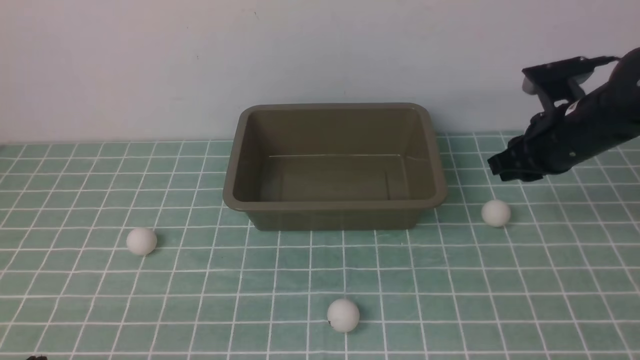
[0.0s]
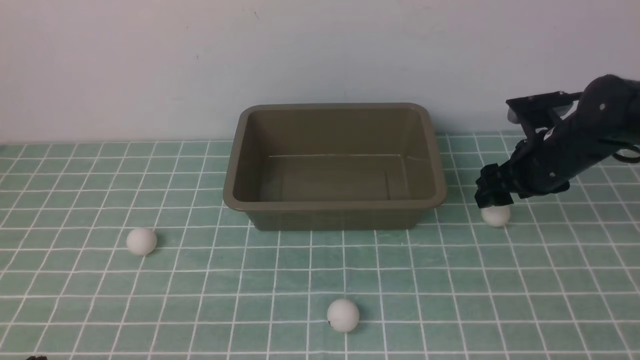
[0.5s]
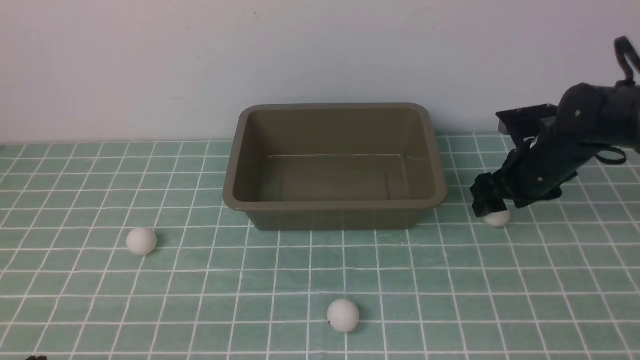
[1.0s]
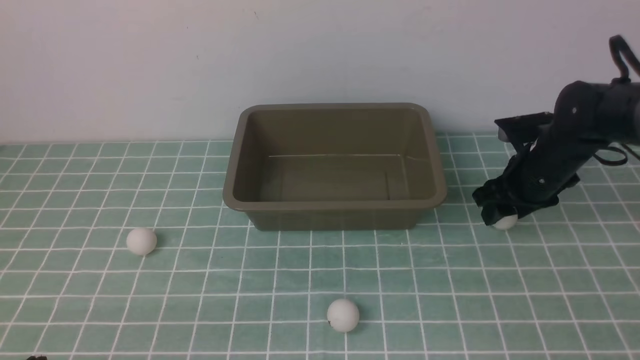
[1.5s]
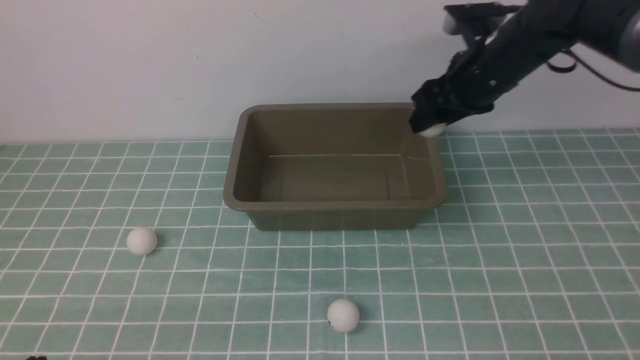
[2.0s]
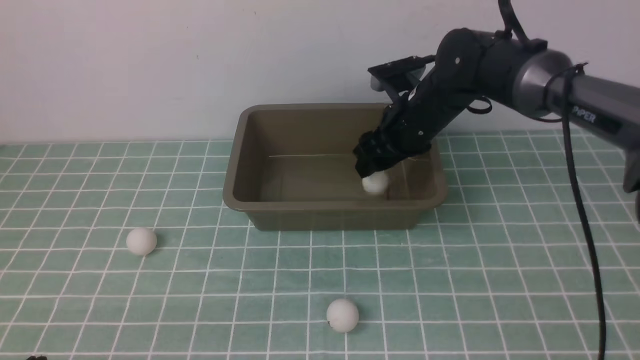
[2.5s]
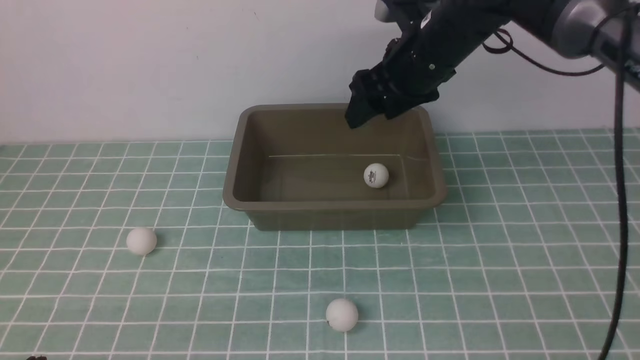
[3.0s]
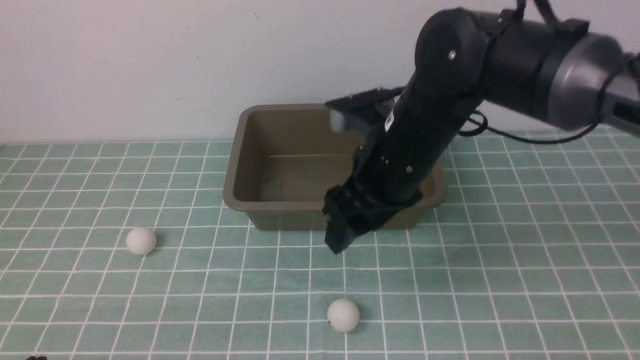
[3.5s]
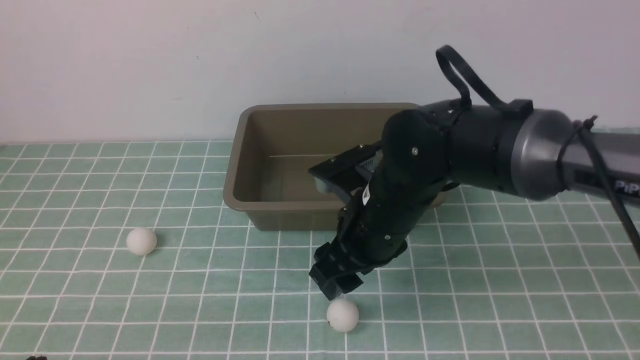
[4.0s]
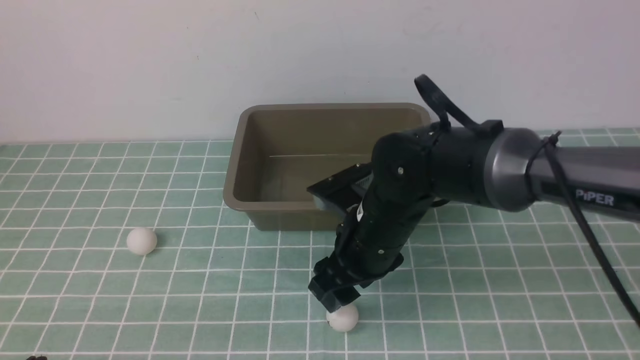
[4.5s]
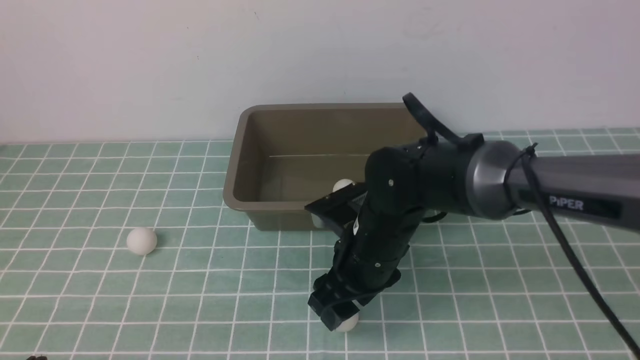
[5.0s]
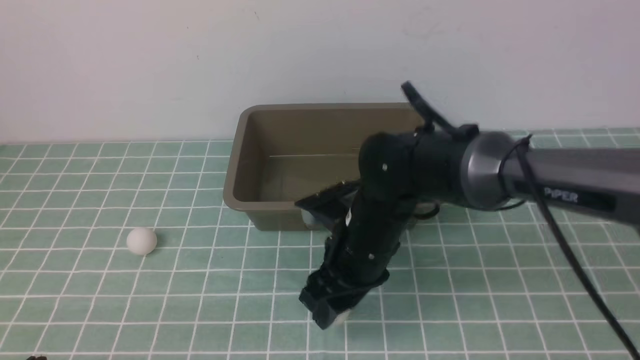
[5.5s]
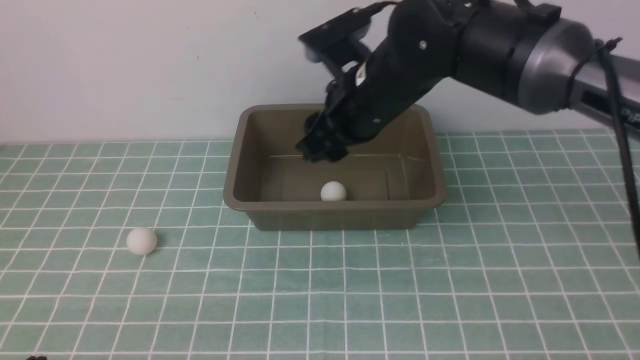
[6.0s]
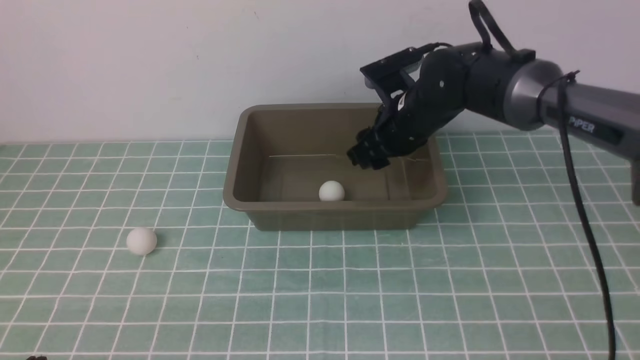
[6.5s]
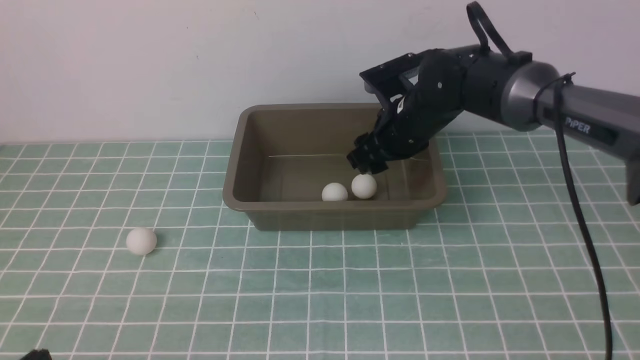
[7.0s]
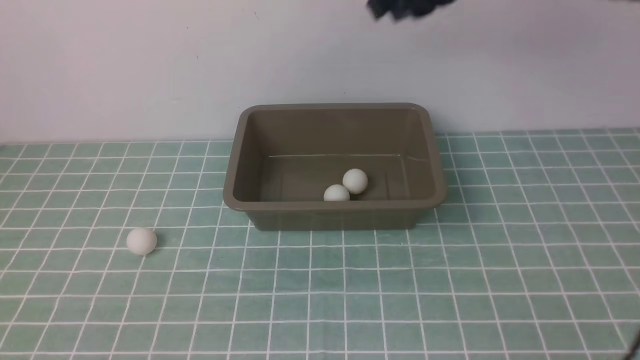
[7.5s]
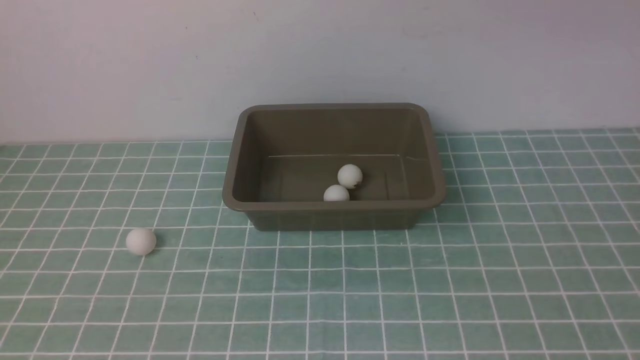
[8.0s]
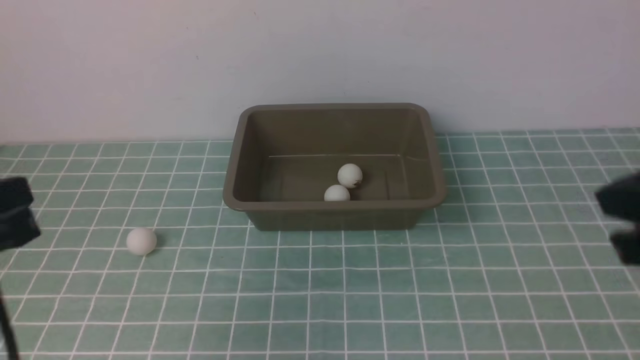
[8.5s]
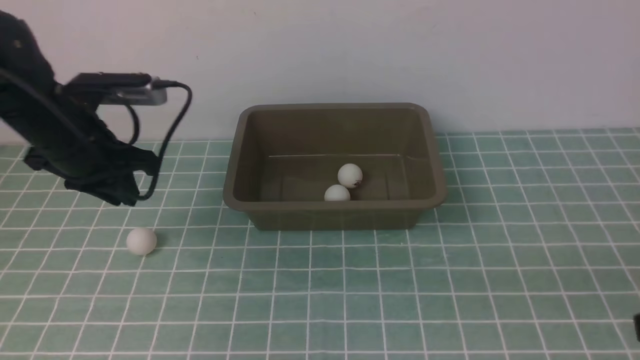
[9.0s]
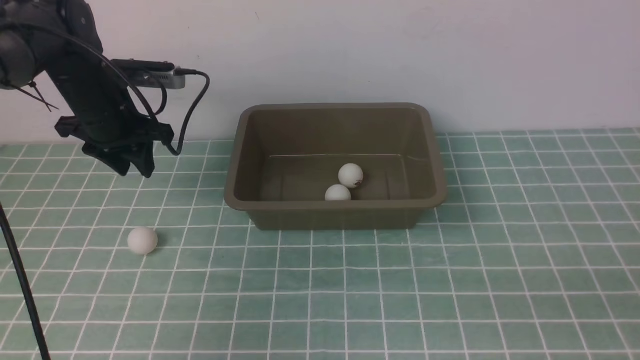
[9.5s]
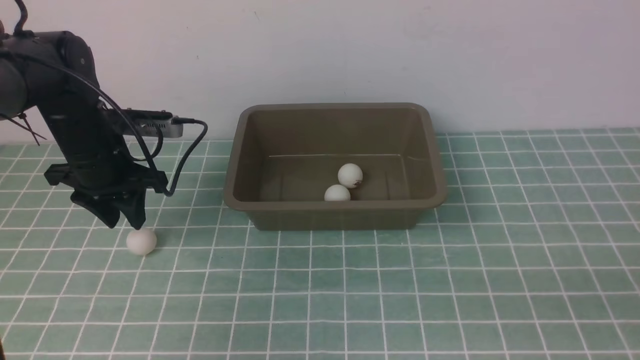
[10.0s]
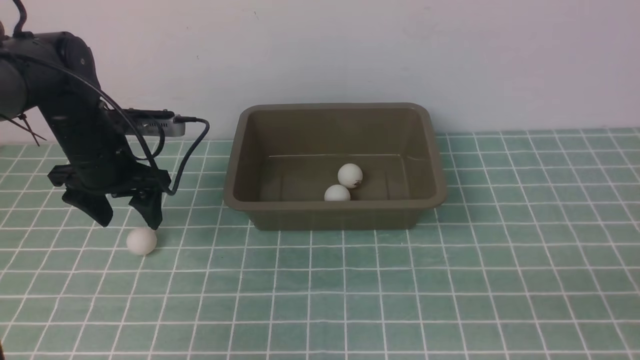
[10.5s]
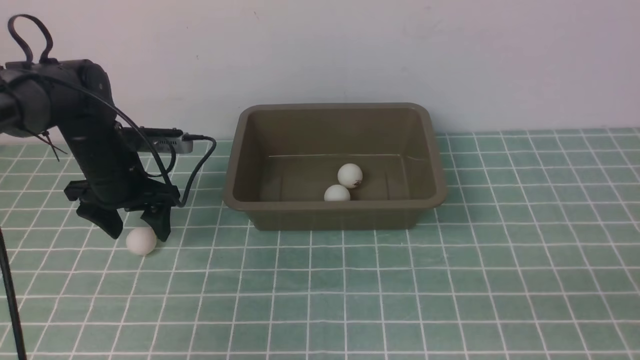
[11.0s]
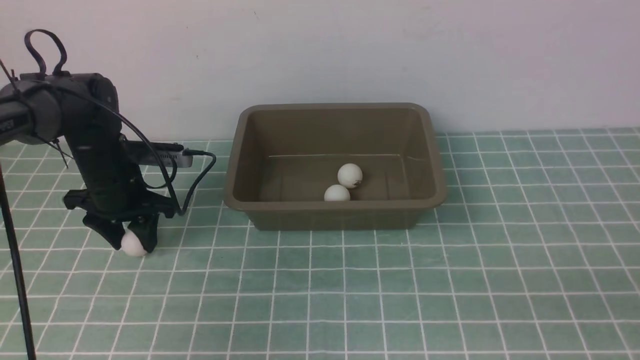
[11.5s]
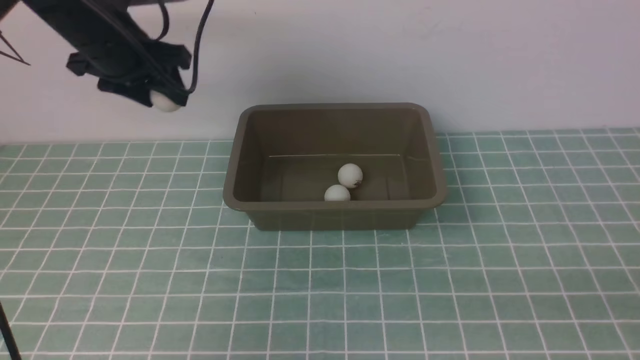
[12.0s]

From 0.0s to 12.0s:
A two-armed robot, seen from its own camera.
Step, from 2.0s to 2.5s: use the right arm to put the table tennis ball into the box.
Step, from 3.0s to 5.5s: use the right arm to clamp the table tennis ball closest to it.
Step, from 6.0s to 6.5s: use the right arm to put the table tennis ball into the box.
Step, from 7.0s to 11.5s: use the left arm to clamp the table tennis ball closest to it.
From 0.0s to 2.0s: The right gripper heads forward and to the left, covering roughly 10 cm.
From 2.0s to 4.0s: The right gripper heads to the left and backward, covering roughly 20 cm.
From 4.0s to 6.0s: The right gripper goes roughly 5 cm forward.
From 6.0s to 8.0s: The left gripper goes roughly 10 cm upward. The right gripper heads upward and to the right, covering approximately 30 cm, and closes.
From 8.0s to 10.0s: The left gripper moves forward, about 35 cm, and opens its fingers. Meanwhile the right gripper heads backward and downward, covering approximately 30 cm.
From 10.0s to 12.0s: The left gripper ends up about 5 cm from where it was, and opens, then closes again.

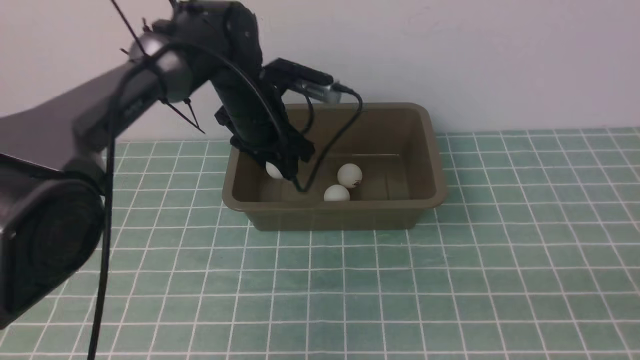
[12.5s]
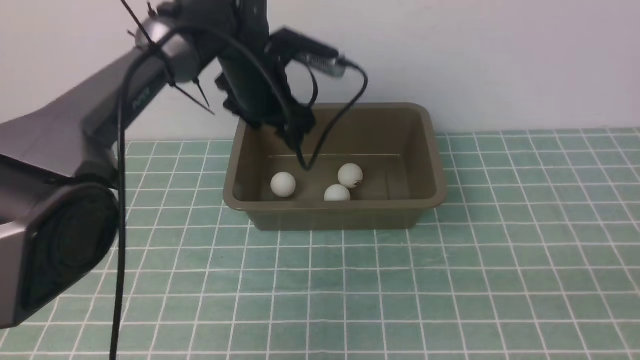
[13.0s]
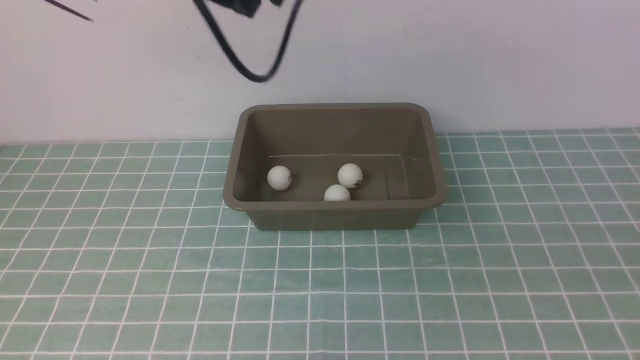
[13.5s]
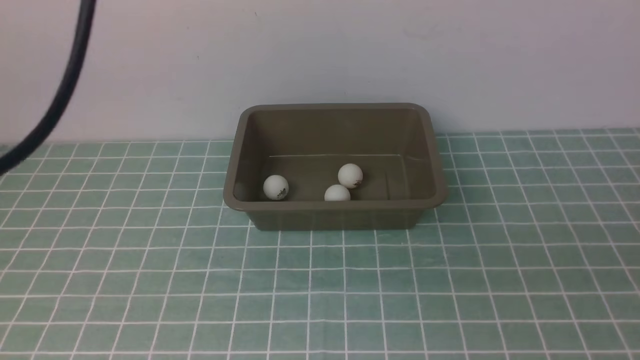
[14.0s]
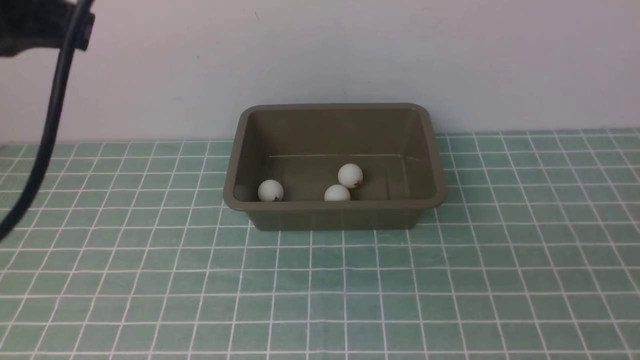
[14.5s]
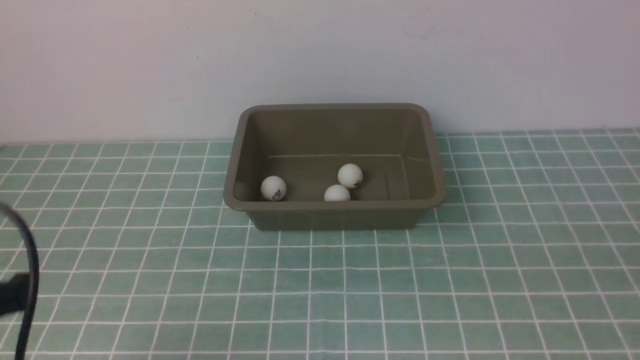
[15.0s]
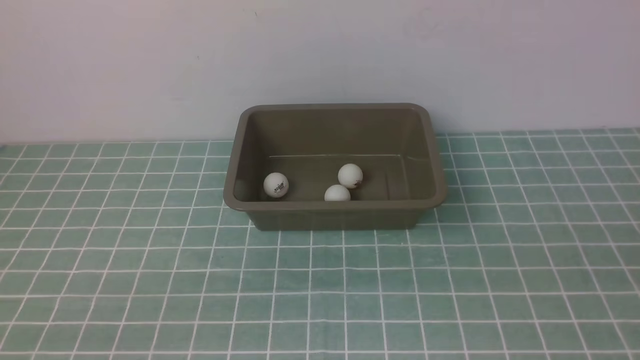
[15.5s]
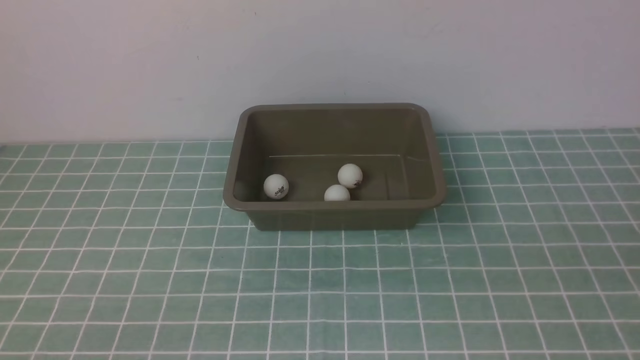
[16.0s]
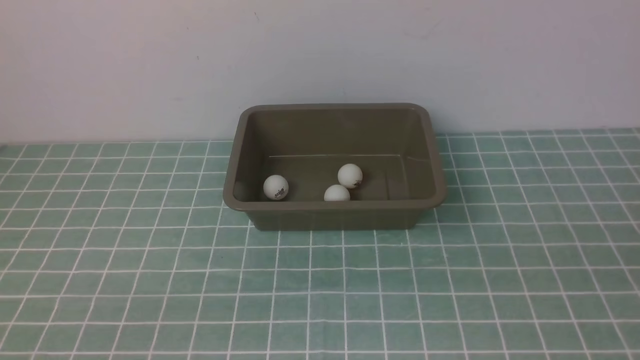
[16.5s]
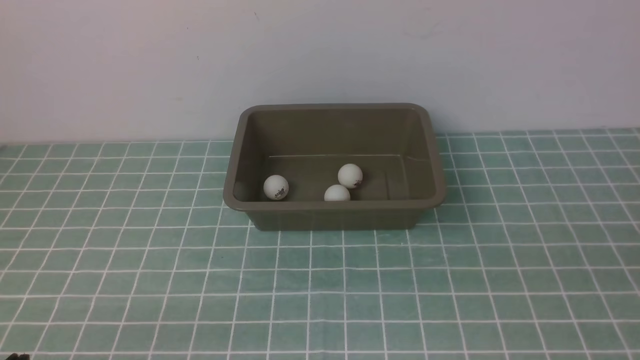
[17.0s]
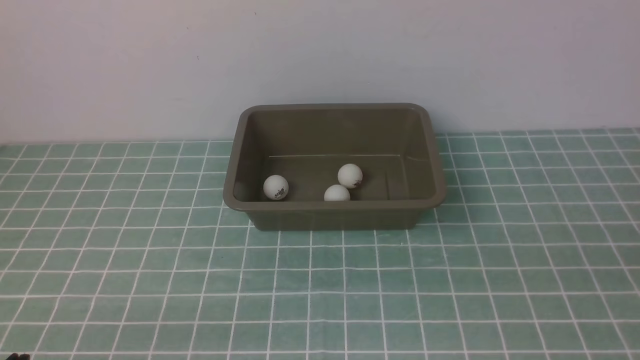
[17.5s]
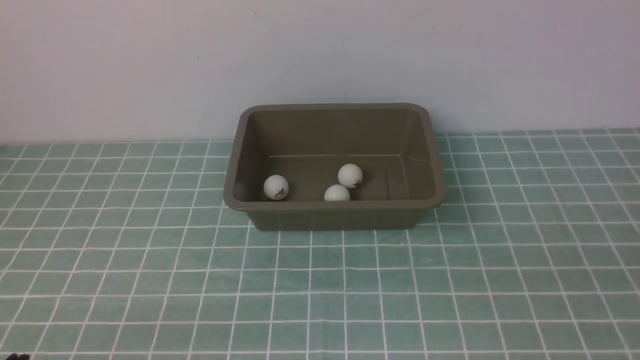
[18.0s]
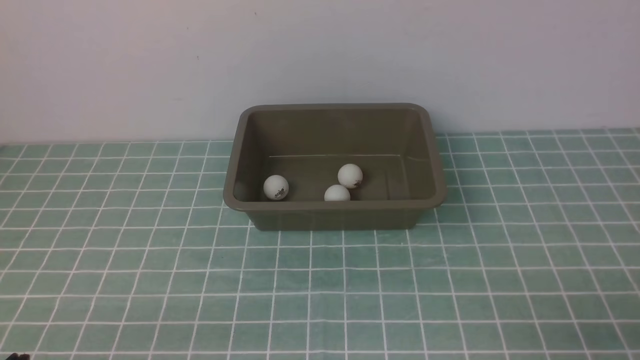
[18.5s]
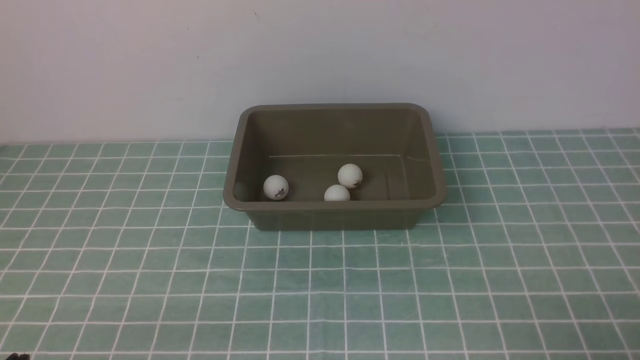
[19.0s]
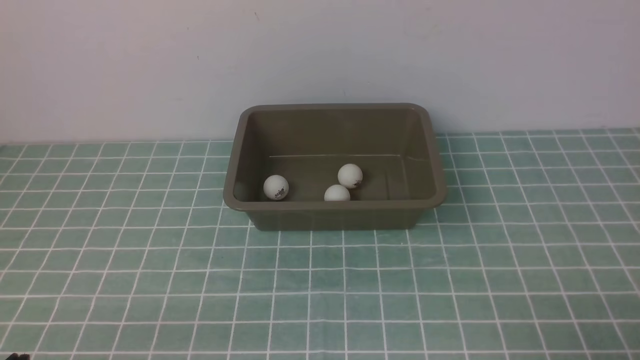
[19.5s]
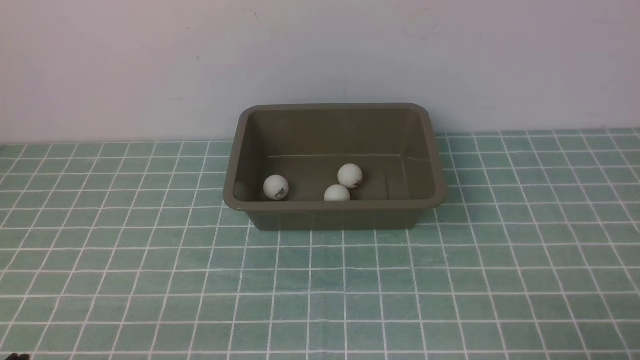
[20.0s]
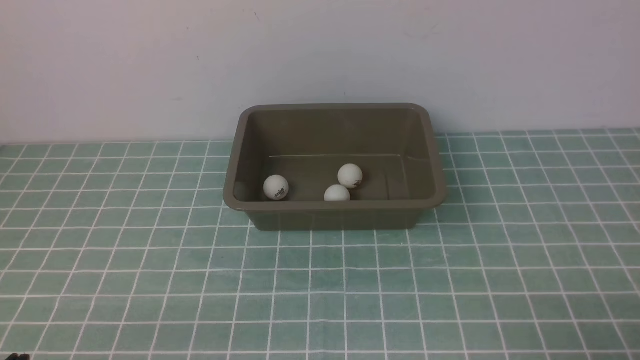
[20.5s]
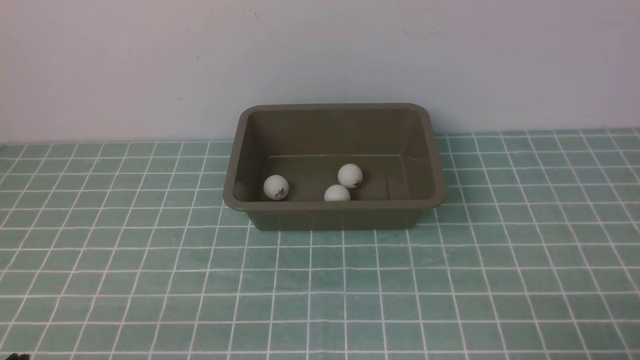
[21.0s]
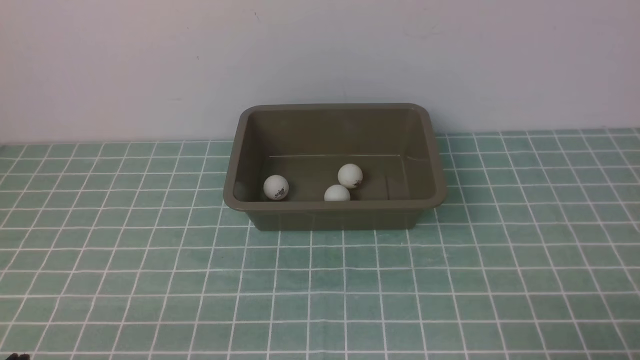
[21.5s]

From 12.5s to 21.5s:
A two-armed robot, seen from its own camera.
From 12.5s to 14.5s: The left gripper is displaced backward and upward by about 35 cm, and closes its fingers.
From 14.5s to 17.0s: The left gripper travels downward and backward by roughly 35 cm.
From 19.5s to 21.5s: The two grippers keep their place.
